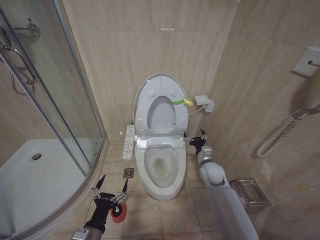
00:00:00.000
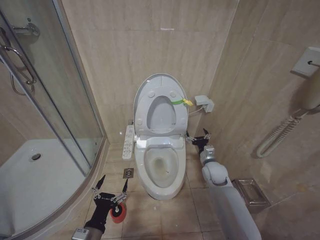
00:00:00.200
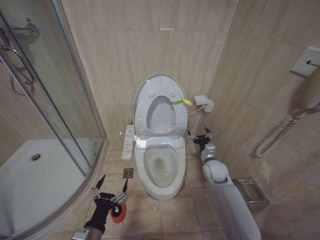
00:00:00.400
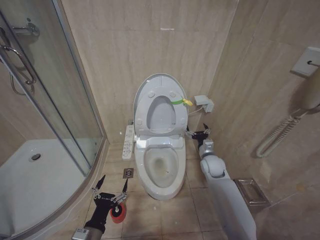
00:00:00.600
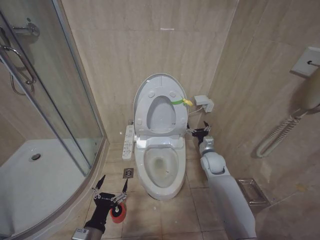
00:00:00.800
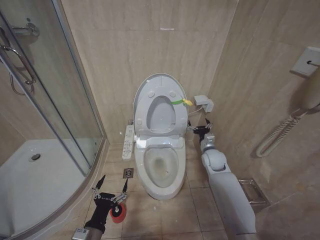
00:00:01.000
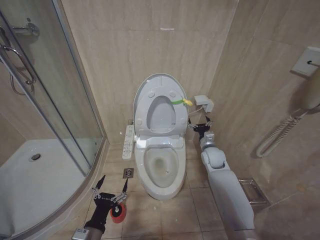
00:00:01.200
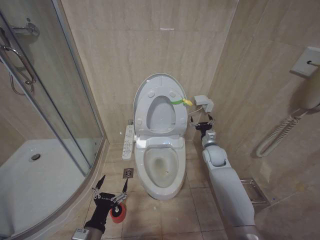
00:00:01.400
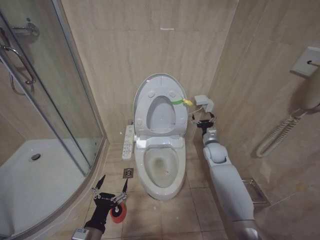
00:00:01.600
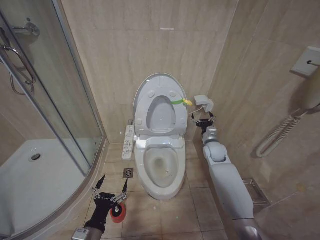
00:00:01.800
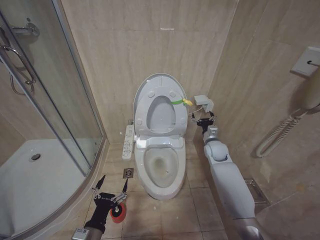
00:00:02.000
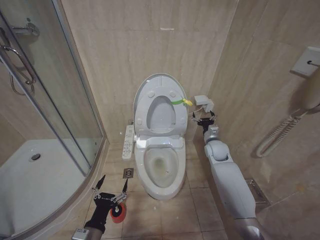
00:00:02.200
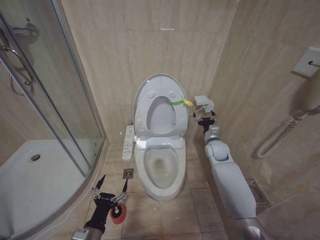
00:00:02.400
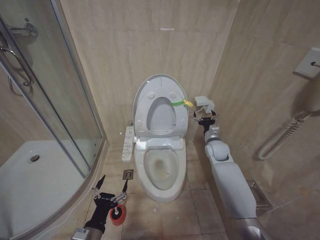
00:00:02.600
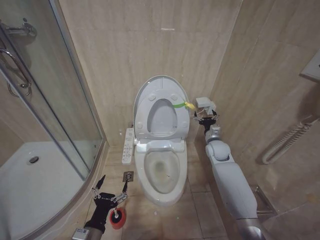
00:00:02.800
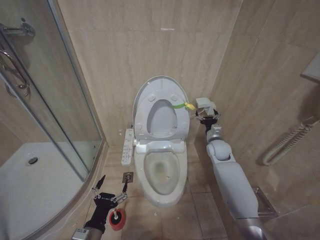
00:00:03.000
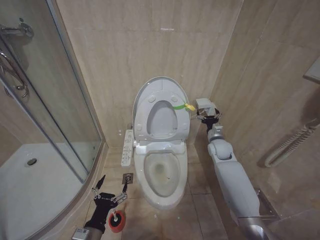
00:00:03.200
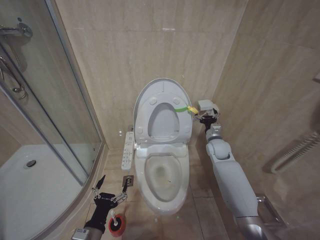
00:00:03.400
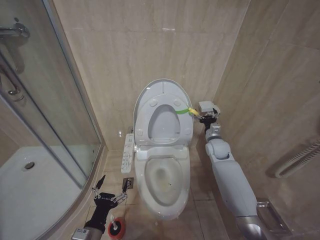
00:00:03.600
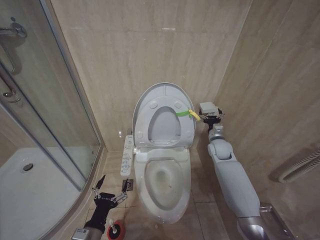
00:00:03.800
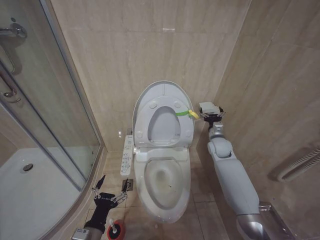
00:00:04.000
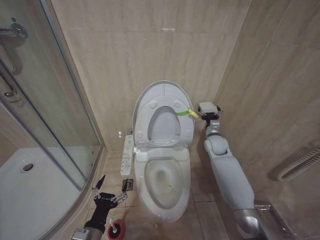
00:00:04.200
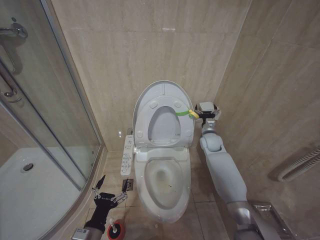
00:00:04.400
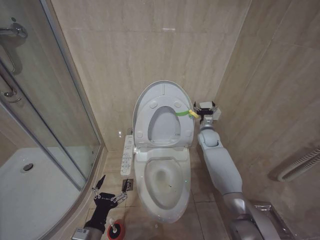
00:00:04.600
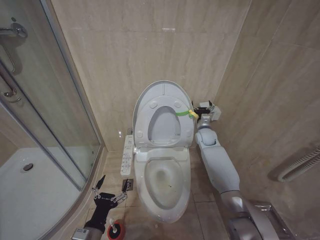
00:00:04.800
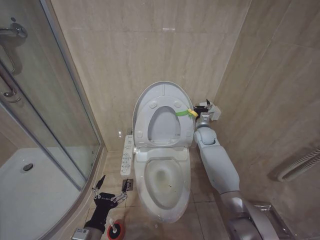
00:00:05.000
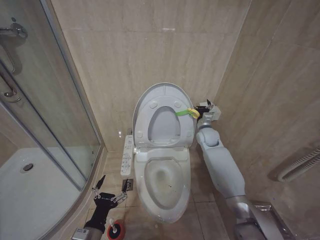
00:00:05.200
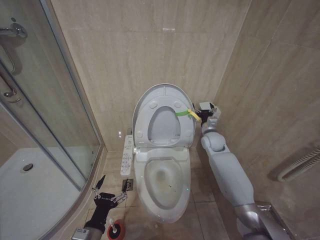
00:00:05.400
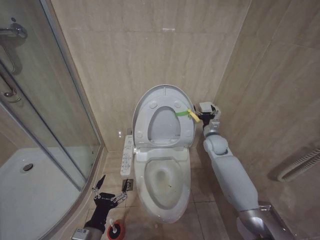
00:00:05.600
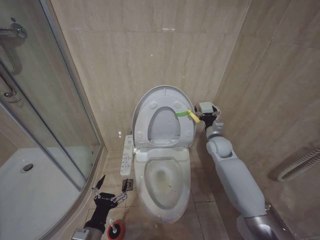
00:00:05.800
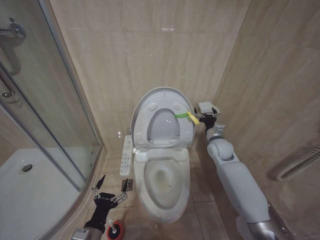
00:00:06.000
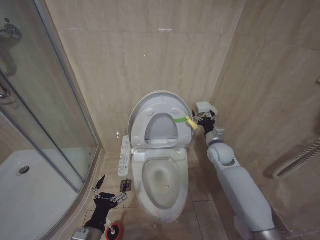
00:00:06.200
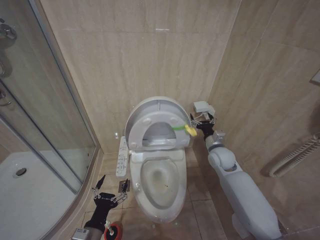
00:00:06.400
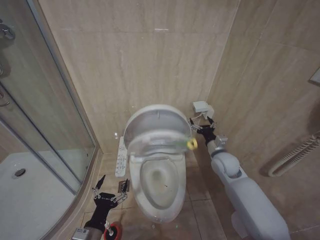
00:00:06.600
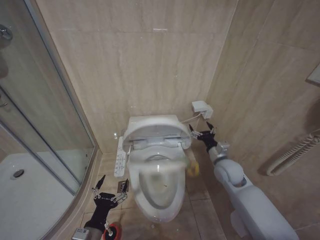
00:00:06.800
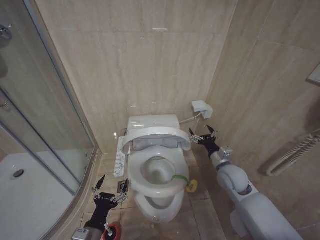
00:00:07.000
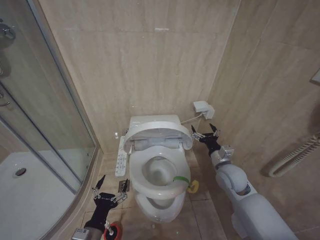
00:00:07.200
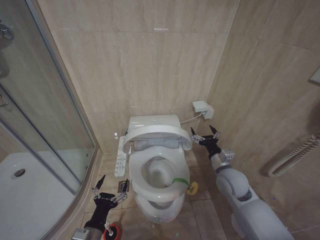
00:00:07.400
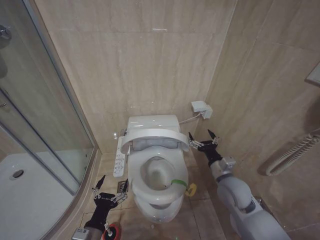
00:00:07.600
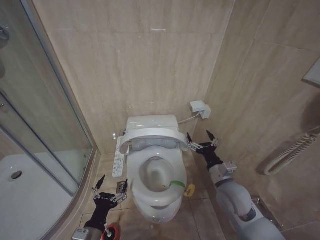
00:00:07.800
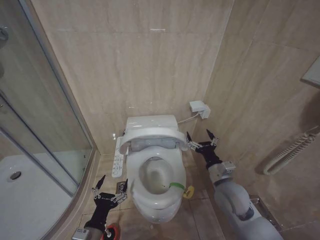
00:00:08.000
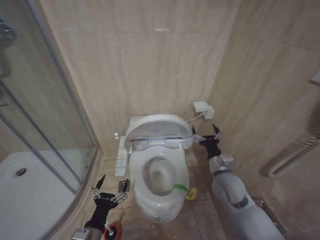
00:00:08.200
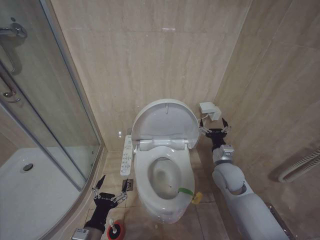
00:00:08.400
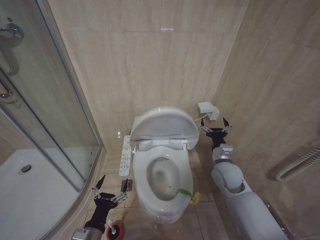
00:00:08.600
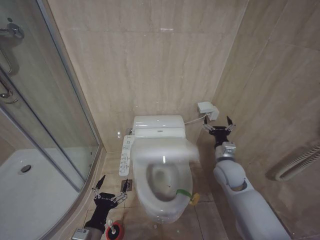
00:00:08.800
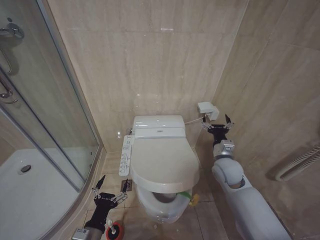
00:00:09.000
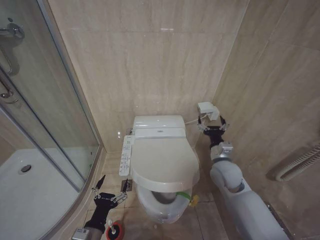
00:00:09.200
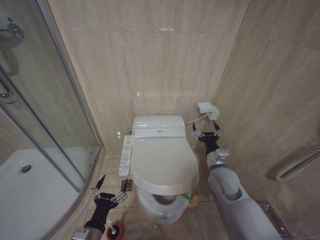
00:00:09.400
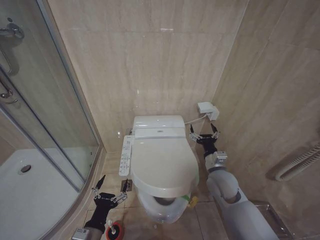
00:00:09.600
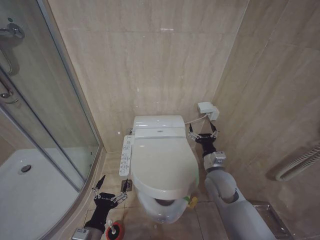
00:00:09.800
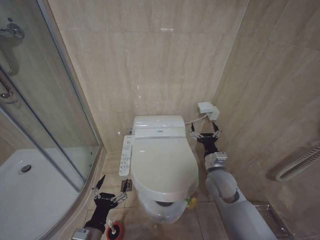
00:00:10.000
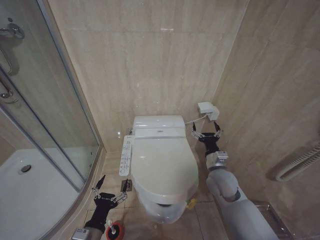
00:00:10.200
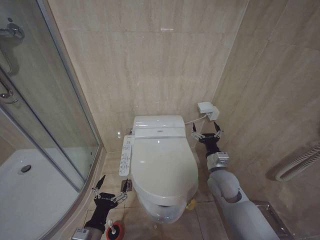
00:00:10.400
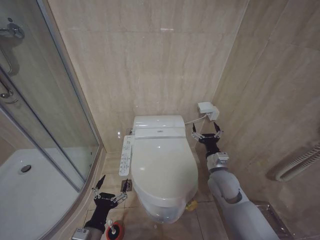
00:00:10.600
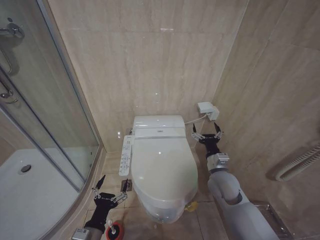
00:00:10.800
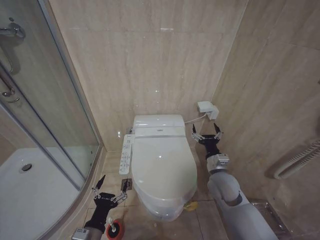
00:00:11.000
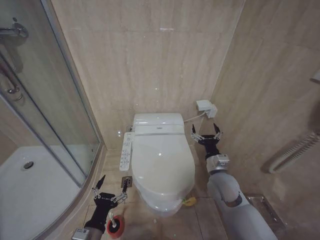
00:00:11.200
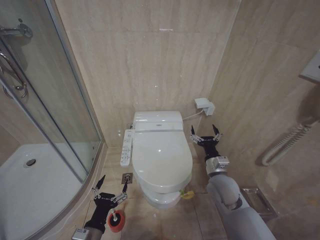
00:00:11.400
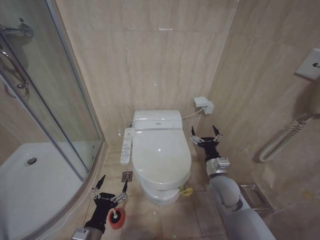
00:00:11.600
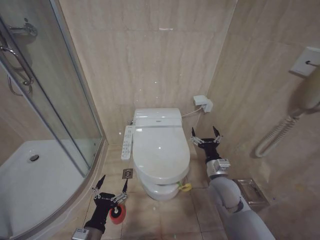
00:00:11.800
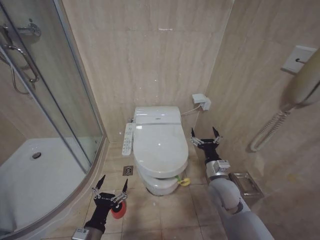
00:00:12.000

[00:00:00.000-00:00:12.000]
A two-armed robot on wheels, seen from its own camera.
Task of the whole recording: Open the toilet lid, clean the toilet bowl with a toilet brush, close the toilet lid, and flush.
00:00:00.000 to 00:00:01.600: The right gripper shifts about 10 cm forward and upward.
00:00:01.600 to 00:00:04.400: The grippers make only small movements.
00:00:04.400 to 00:00:06.000: The right gripper moves backward, roughly 5 cm.
00:00:06.000 to 00:00:07.600: The right gripper goes about 15 cm backward.
00:00:07.600 to 00:00:09.000: The right gripper shifts roughly 5 cm forward.
00:00:09.000 to 00:00:10.400: The grippers stay close to where they were, moving slightly.
00:00:10.400 to 00:00:12.000: The grippers move only a little.

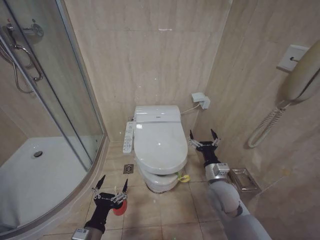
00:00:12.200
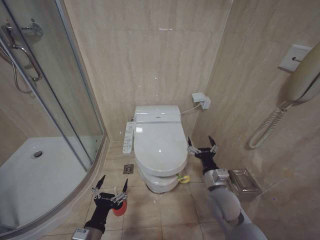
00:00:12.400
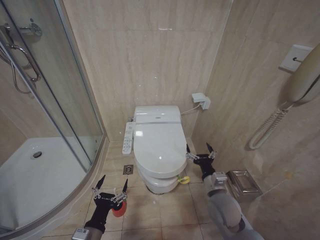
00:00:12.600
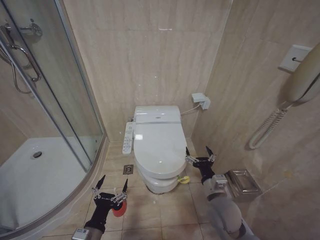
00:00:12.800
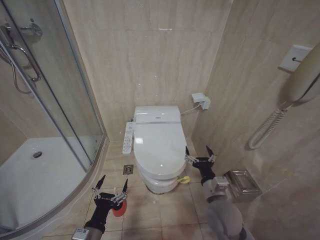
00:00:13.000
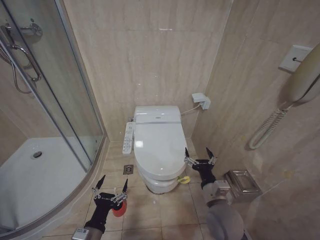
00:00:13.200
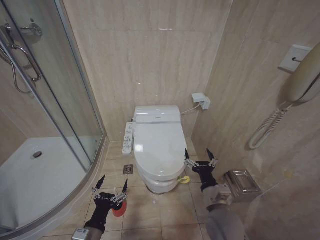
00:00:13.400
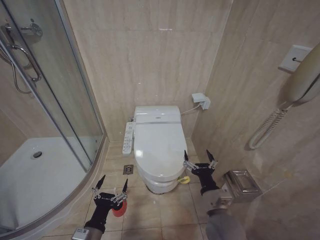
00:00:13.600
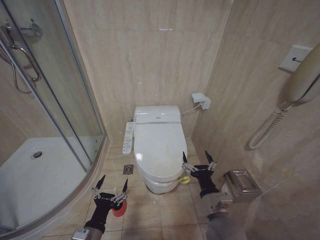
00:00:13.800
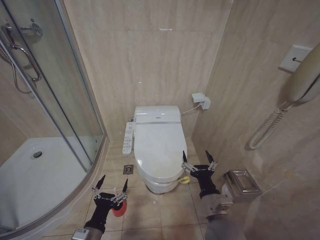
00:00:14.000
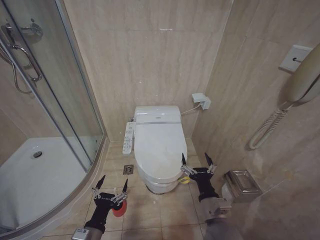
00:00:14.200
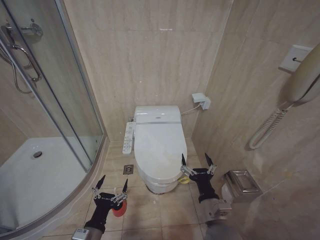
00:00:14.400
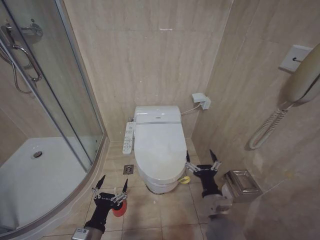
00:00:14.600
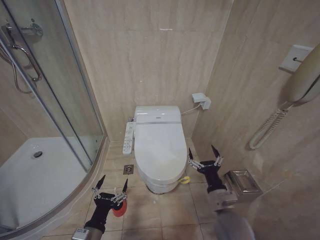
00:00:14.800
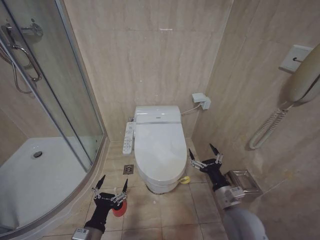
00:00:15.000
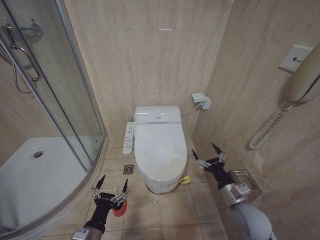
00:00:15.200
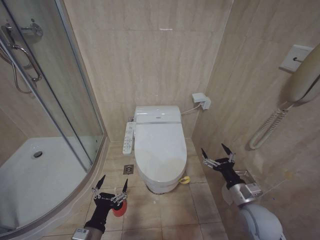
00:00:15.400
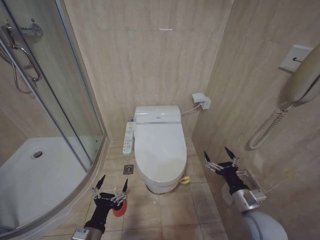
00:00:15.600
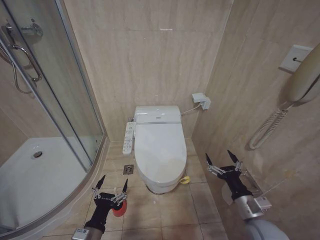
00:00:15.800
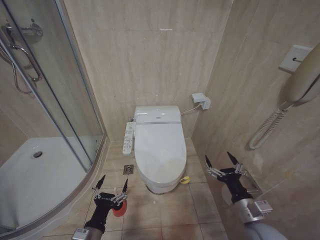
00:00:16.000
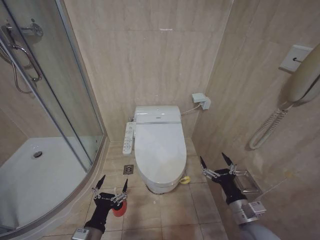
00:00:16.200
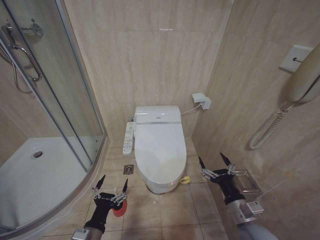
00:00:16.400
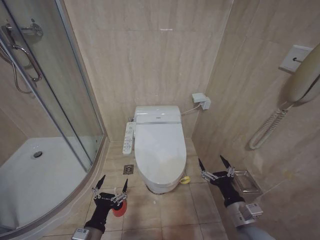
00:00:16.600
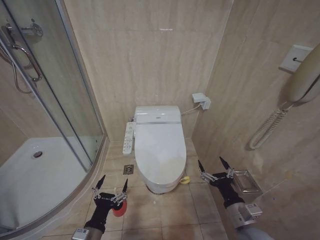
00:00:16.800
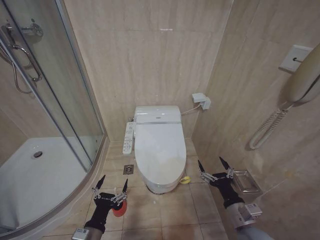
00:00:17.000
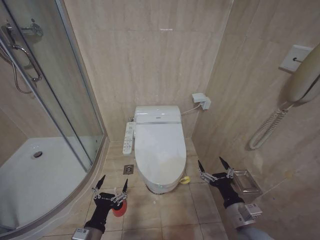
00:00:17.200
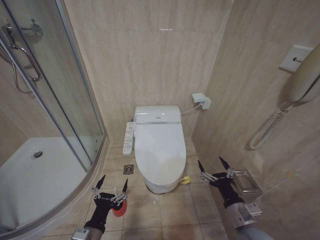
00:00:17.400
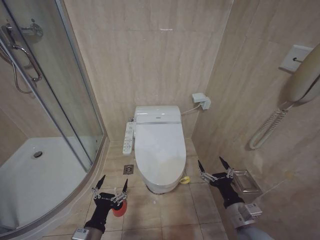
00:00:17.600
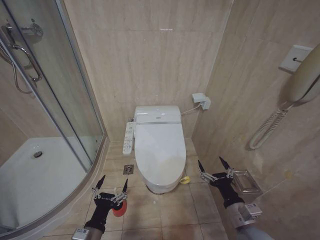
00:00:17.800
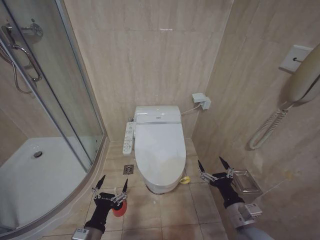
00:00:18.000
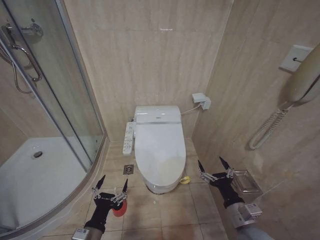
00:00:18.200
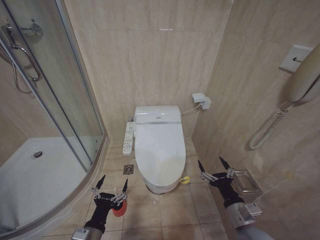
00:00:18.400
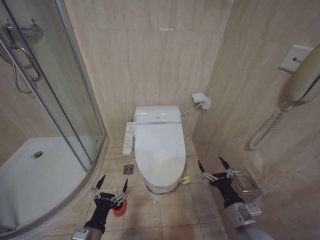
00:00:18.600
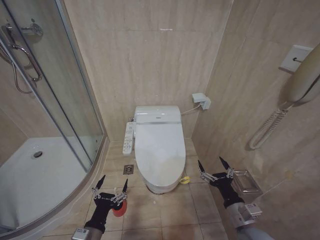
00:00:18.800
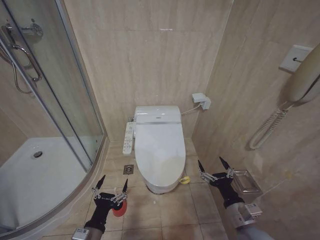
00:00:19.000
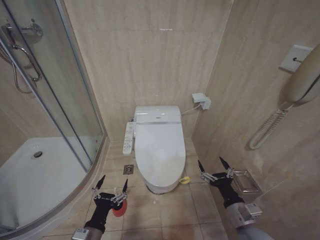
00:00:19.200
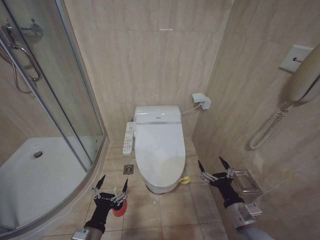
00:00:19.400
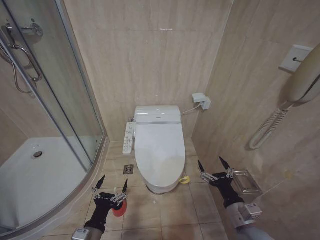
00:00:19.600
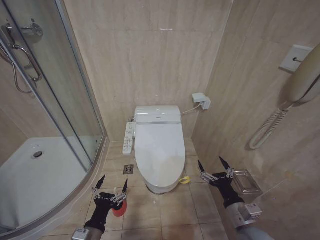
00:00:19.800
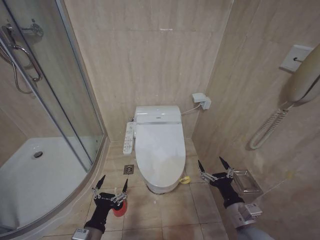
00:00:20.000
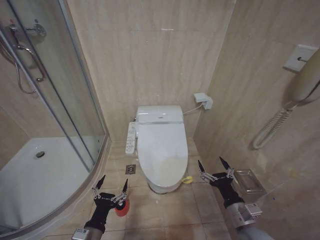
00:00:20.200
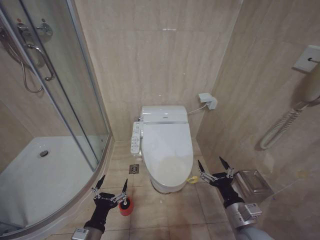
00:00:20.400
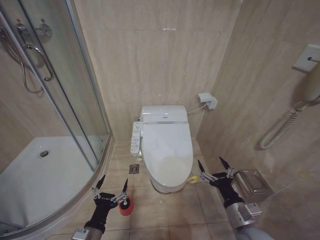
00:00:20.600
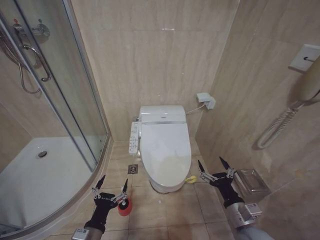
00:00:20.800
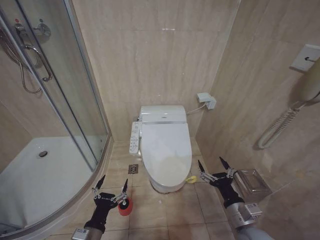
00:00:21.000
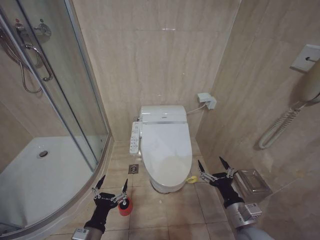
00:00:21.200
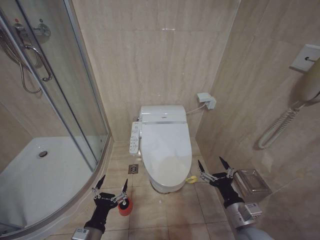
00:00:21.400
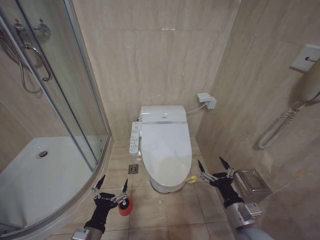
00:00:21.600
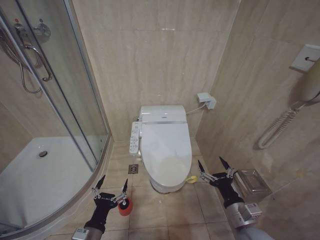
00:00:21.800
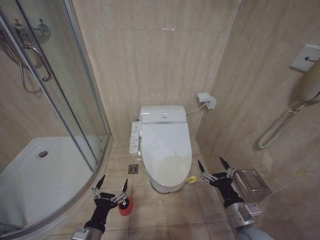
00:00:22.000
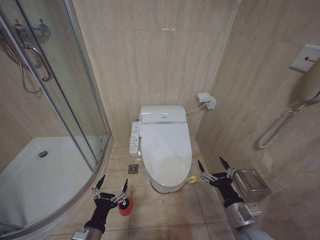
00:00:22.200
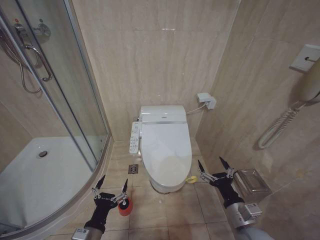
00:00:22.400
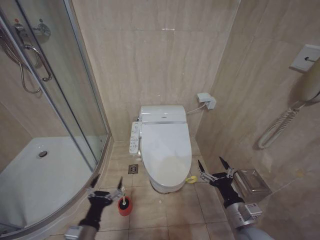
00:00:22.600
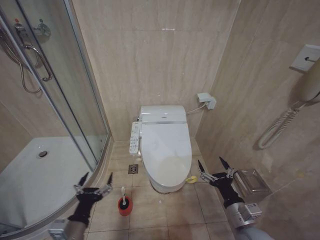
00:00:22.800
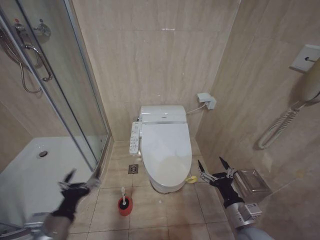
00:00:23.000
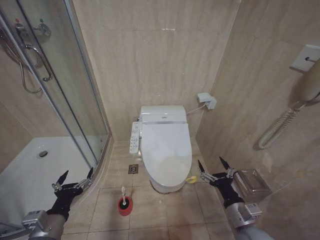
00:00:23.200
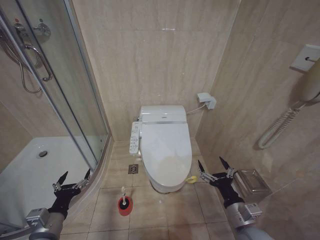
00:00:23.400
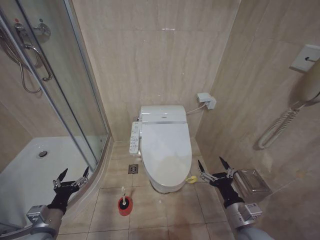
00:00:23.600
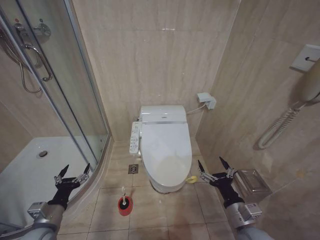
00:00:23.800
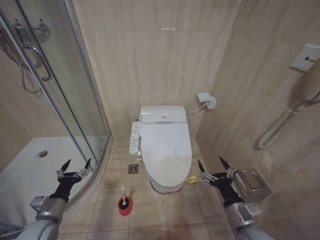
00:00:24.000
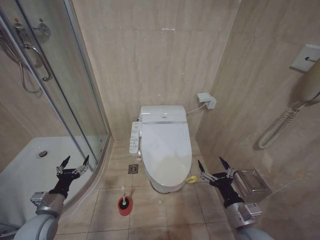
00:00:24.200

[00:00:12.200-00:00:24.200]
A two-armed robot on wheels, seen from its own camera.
Task of the whole recording: Open the toilet lid, clean the toilet bowl with a toilet brush, close the toilet lid, and flush.
00:00:12.200 to 00:00:13.800: The right gripper travels backward by about 10 cm.
00:00:13.800 to 00:00:15.200: The right gripper shifts roughly 10 cm to the right.
00:00:15.200 to 00:00:16.600: The right gripper is displaced backward by about 5 cm.
00:00:16.600 to 00:00:22.600: The two grippers keep their place.
00:00:22.600 to 00:00:24.200: The left gripper shifts some 15 cm to the left and forward.
